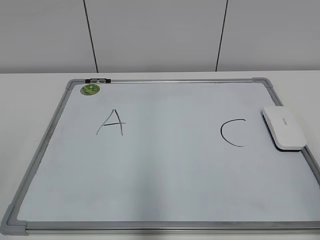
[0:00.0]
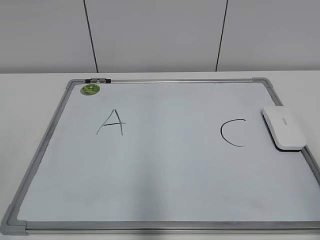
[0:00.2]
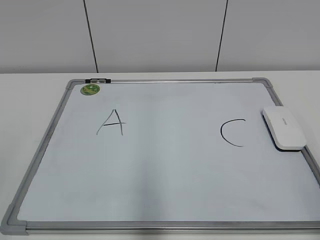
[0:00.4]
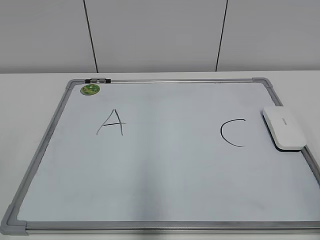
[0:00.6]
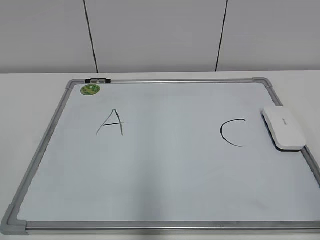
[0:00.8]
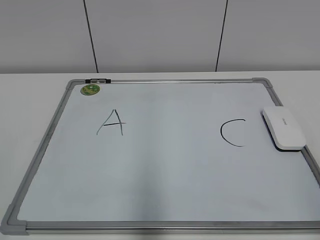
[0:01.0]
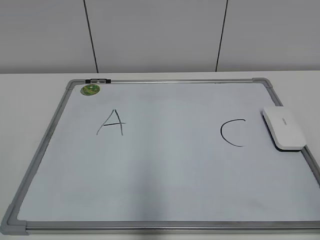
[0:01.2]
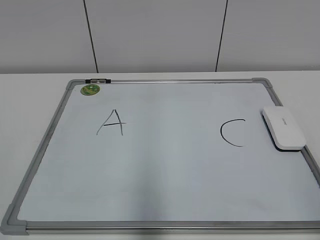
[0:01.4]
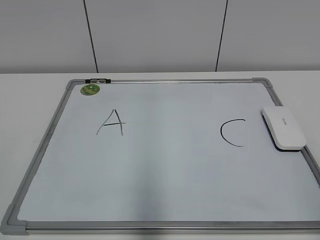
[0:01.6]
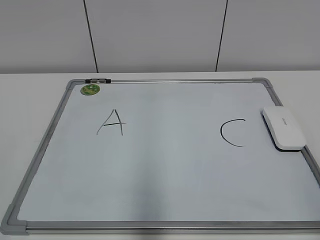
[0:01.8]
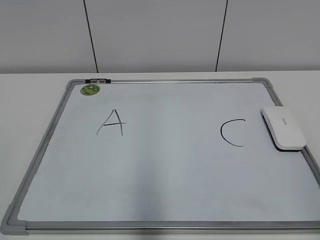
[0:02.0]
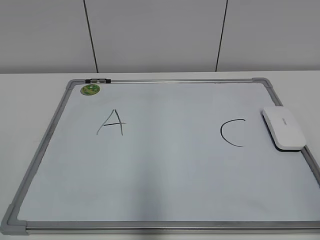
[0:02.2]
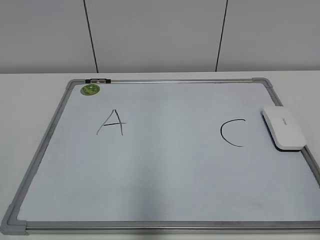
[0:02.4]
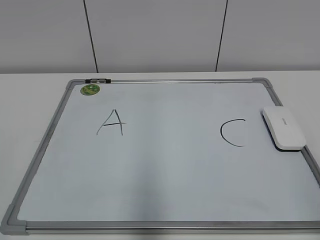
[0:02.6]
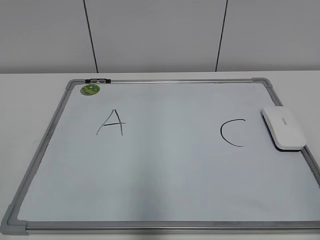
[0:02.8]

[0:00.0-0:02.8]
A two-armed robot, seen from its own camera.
Task of the whole recording: pick up the eraser on the blackboard and erase the letter "B".
0:01.4 to 0:02.8: The two grippers keep their place.
